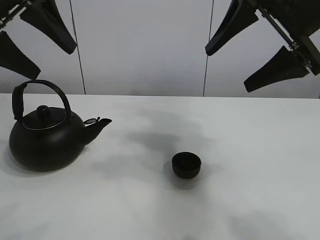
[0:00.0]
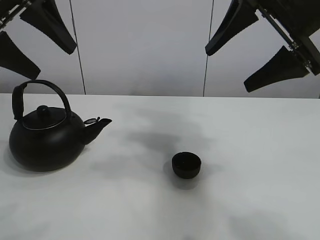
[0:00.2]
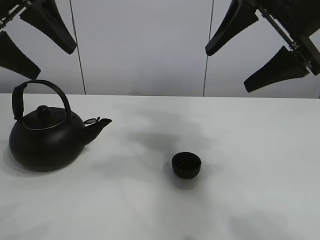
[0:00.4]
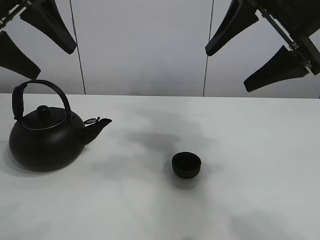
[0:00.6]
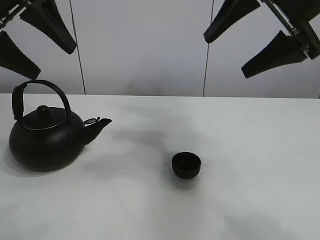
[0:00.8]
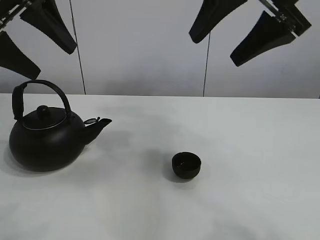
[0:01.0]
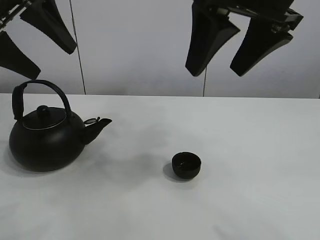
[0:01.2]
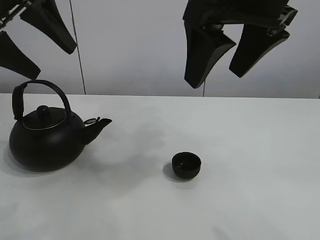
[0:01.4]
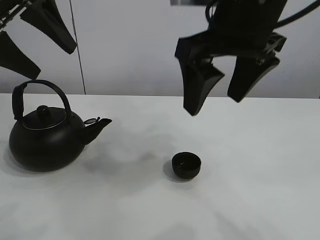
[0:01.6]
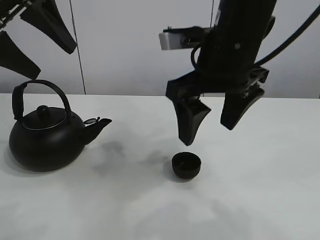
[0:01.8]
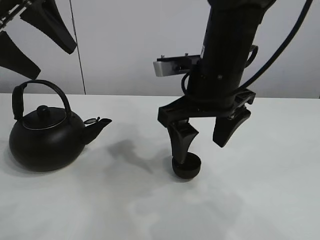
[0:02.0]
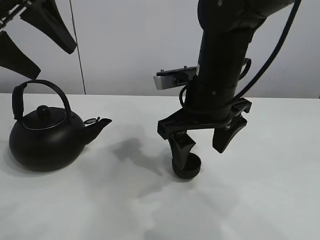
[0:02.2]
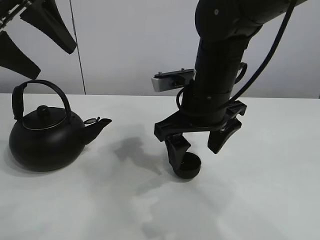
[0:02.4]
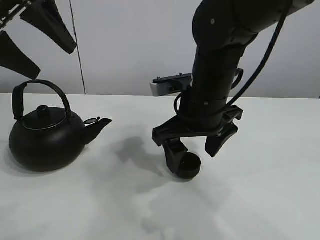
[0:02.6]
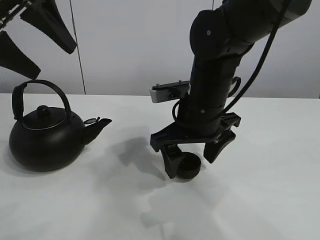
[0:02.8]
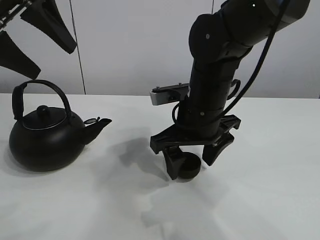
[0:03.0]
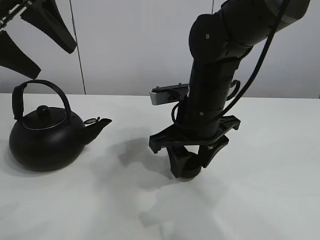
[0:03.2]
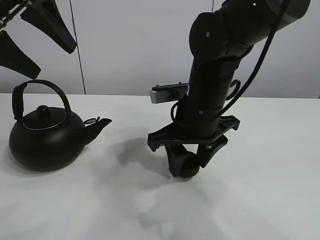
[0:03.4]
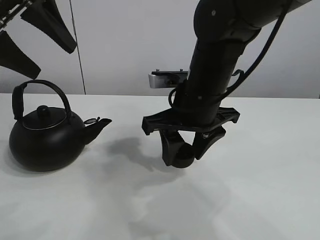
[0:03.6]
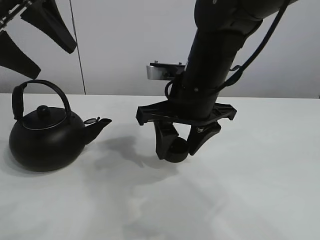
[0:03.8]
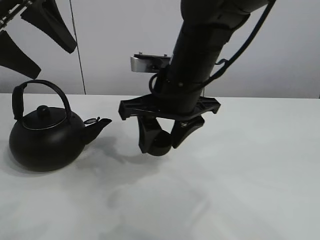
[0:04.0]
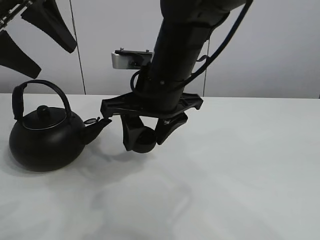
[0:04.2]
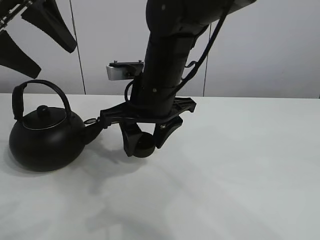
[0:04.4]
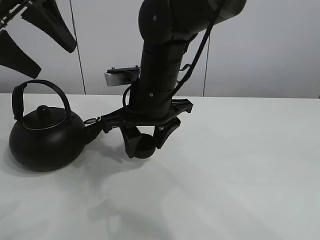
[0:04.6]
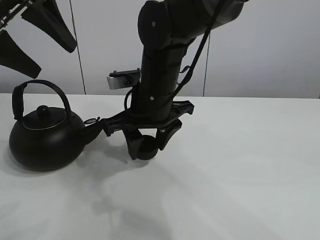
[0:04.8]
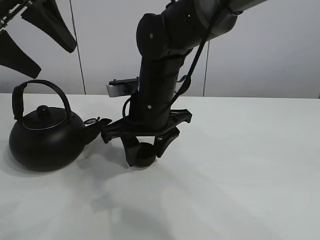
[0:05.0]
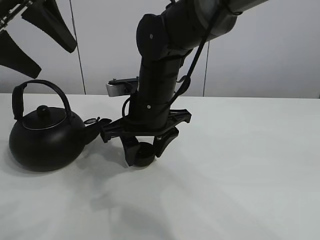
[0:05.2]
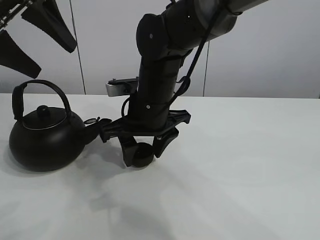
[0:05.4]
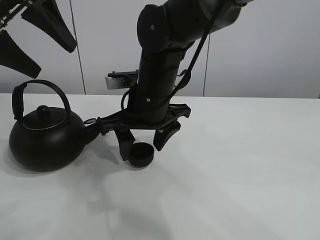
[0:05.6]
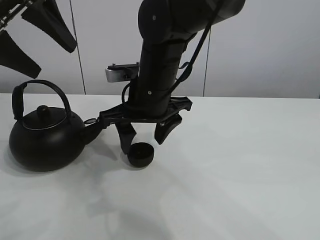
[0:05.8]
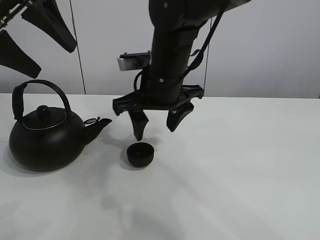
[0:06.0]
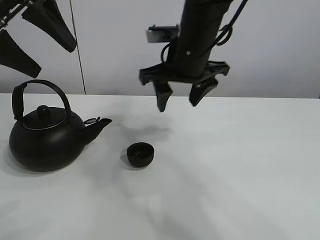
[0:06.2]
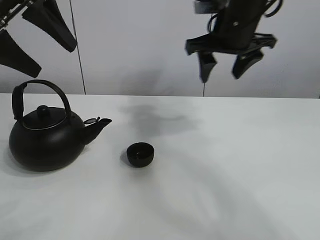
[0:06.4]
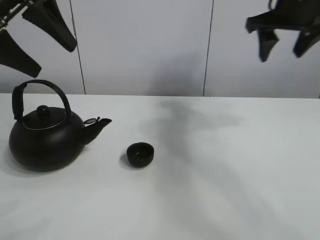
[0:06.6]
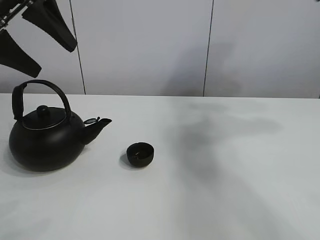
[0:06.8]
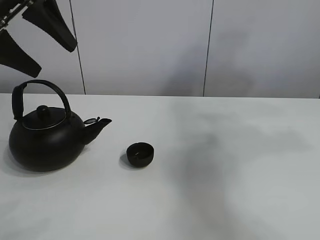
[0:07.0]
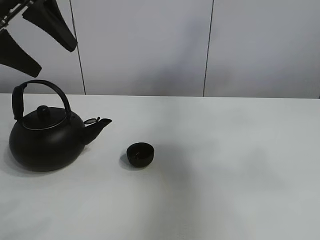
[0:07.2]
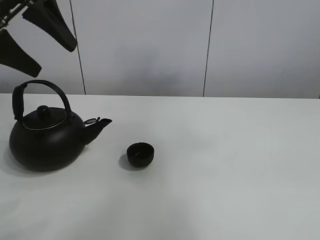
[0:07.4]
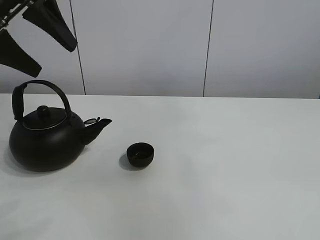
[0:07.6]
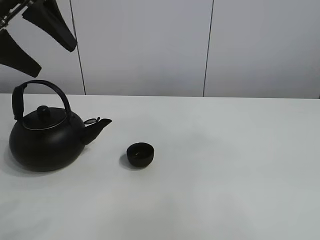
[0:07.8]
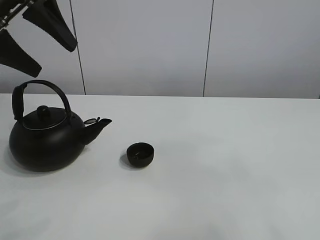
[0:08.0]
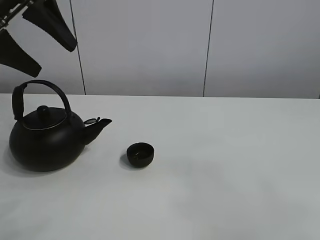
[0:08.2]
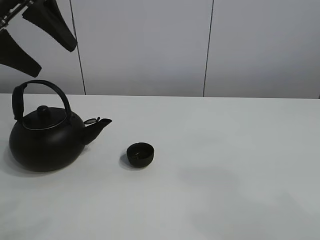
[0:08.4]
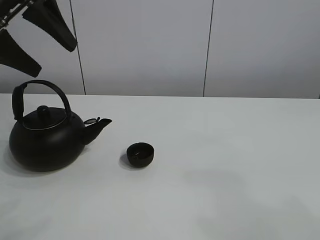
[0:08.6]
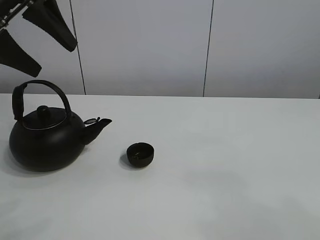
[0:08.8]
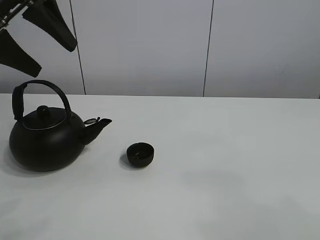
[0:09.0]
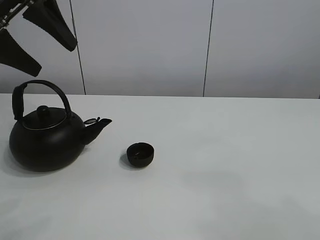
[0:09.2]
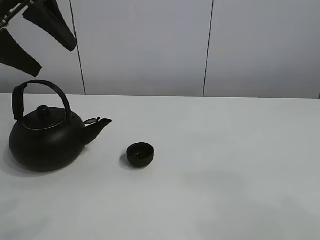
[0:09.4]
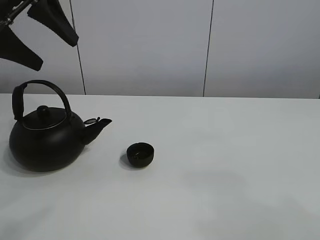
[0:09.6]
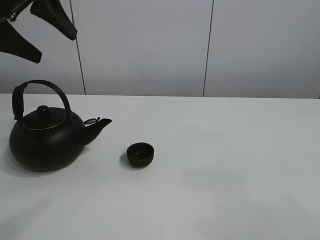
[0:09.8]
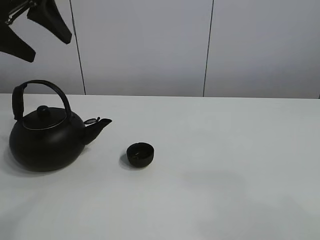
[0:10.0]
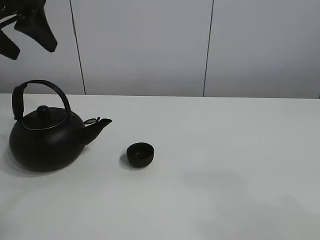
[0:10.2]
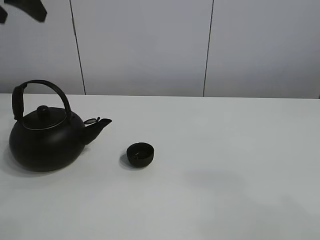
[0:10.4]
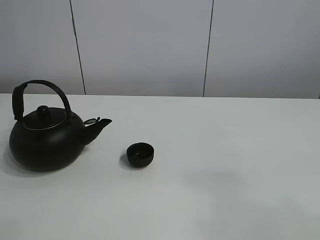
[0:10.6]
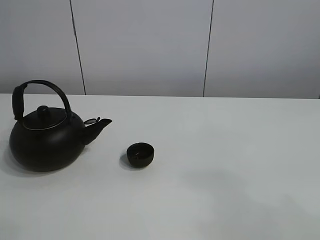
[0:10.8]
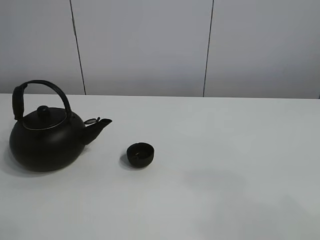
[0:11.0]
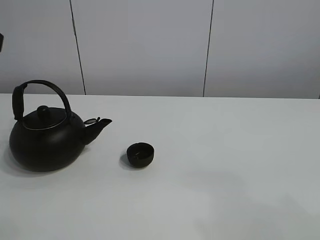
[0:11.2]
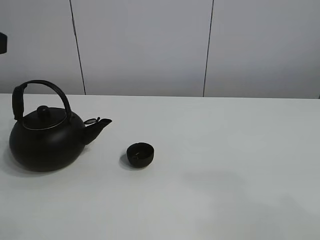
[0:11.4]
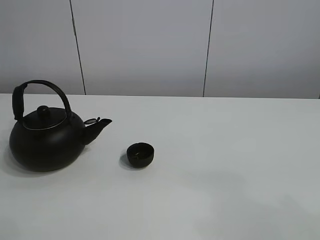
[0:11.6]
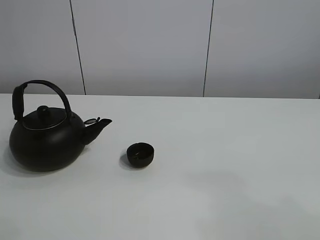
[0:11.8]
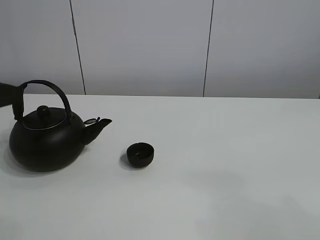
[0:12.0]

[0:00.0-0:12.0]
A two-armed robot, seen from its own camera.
Task of the whole recording: pour tea into the teacup.
Step, 0:00.0 to 0:03.4: Pick up the teacup with the right gripper.
Step, 0:03.6 to 0:05.6: Place the teacup in the center of view with the right gripper.
0:01.6 to 0:03.0: The right gripper goes about 15 cm downward.
0:03.0 to 0:04.4: The right gripper heads to the left, covering about 5 cm, and closes.
0:04.4 to 0:06.0: The right gripper opens.
0:06.0 to 0:07.6: The right gripper moves backward, upward and to the right, approximately 60 cm.
0:07.6 to 0:09.0: The right gripper moves downward, roughly 25 cm.
0:10.4 to 0:12.0: The left gripper travels downward and backward by roughly 15 cm.

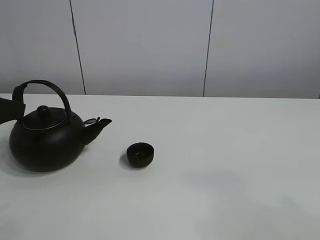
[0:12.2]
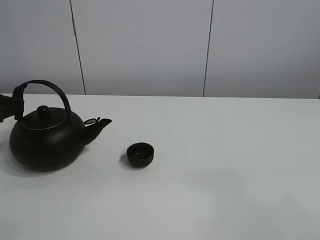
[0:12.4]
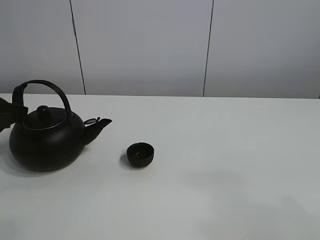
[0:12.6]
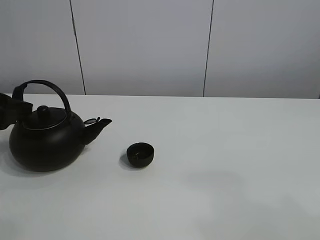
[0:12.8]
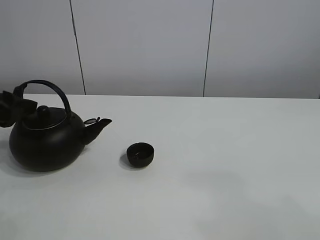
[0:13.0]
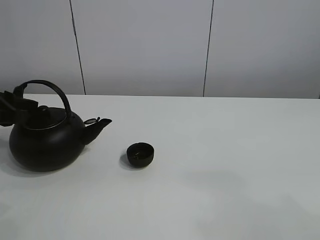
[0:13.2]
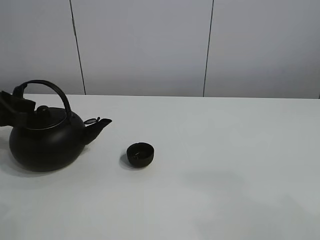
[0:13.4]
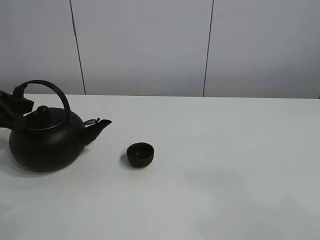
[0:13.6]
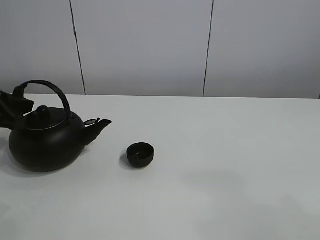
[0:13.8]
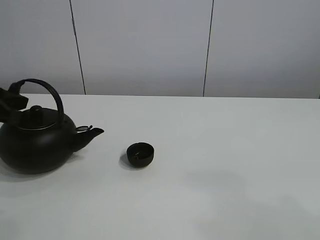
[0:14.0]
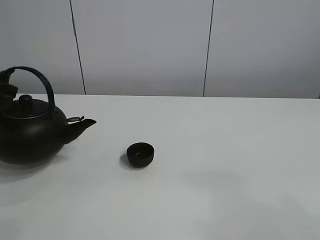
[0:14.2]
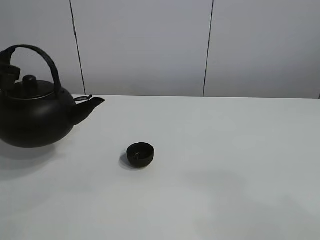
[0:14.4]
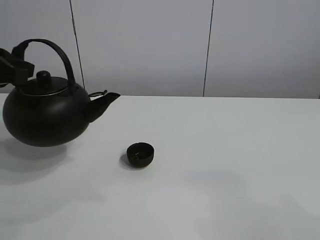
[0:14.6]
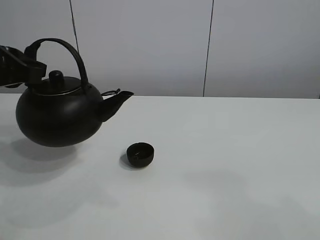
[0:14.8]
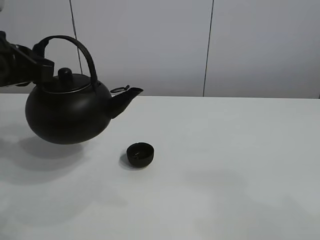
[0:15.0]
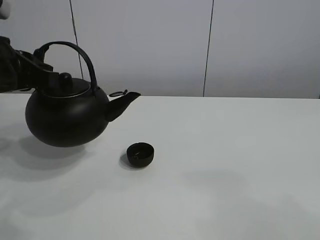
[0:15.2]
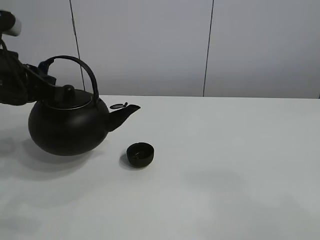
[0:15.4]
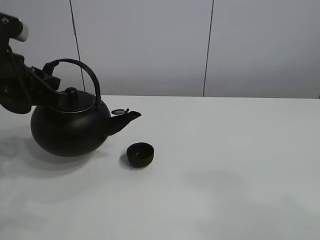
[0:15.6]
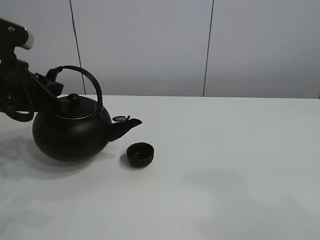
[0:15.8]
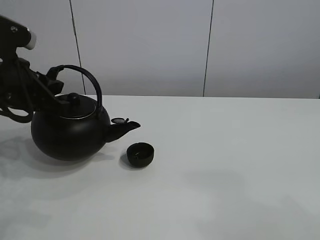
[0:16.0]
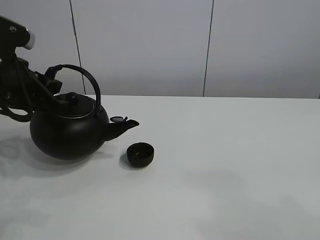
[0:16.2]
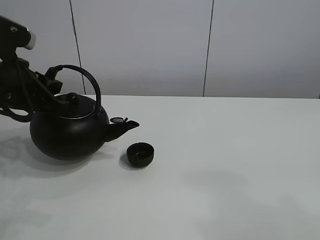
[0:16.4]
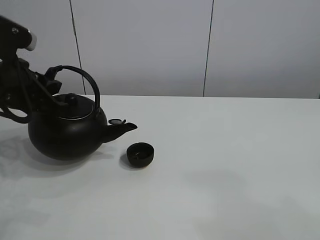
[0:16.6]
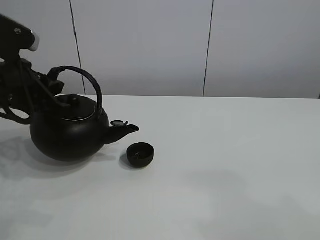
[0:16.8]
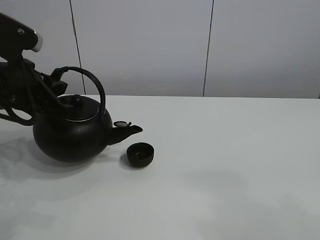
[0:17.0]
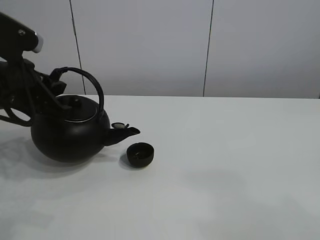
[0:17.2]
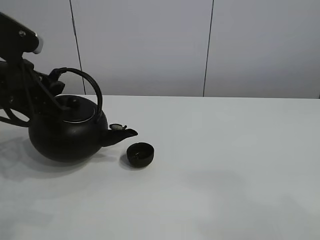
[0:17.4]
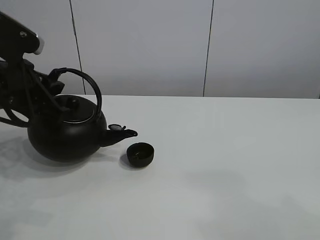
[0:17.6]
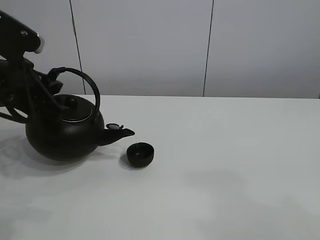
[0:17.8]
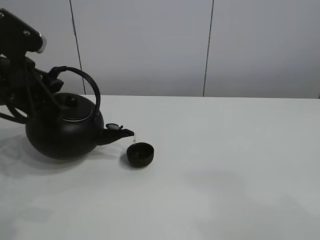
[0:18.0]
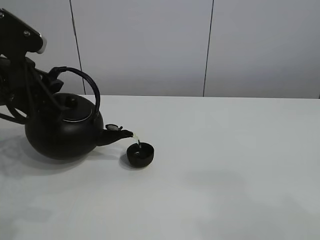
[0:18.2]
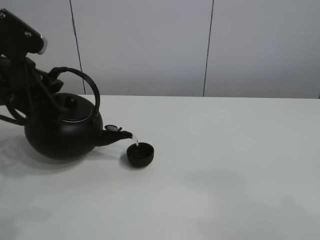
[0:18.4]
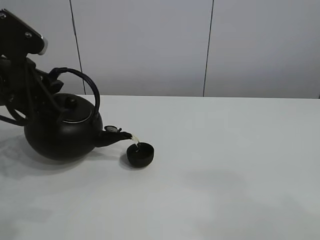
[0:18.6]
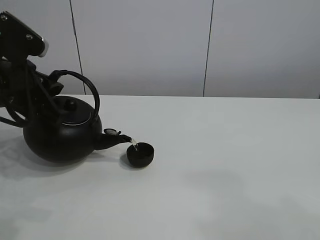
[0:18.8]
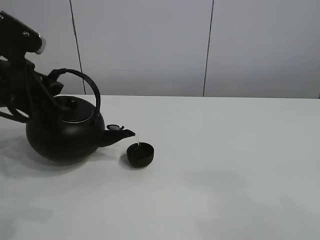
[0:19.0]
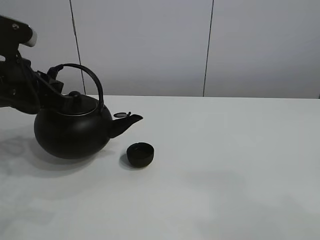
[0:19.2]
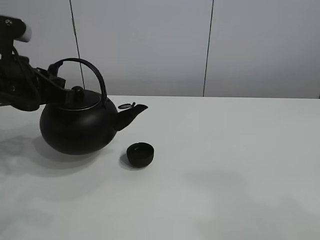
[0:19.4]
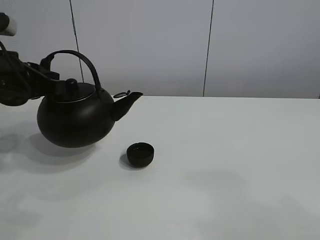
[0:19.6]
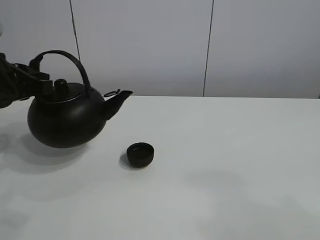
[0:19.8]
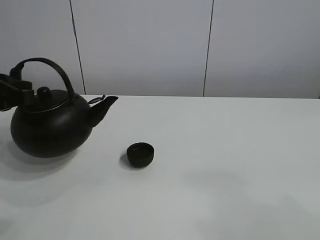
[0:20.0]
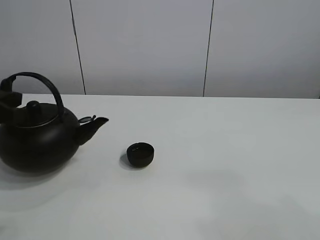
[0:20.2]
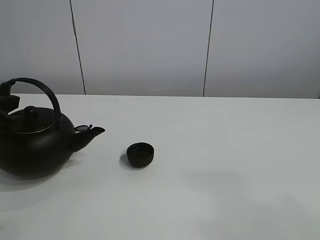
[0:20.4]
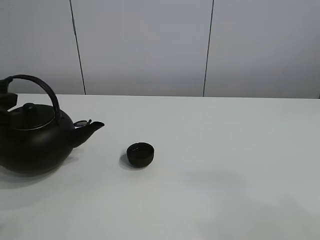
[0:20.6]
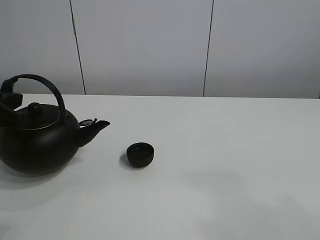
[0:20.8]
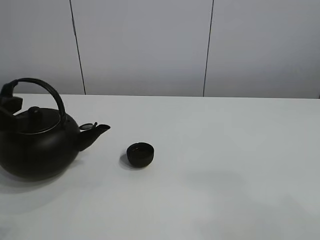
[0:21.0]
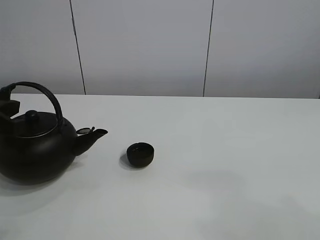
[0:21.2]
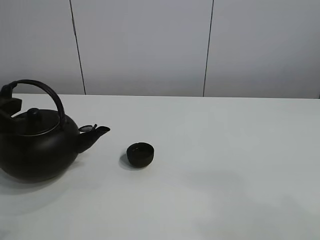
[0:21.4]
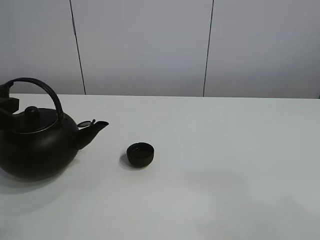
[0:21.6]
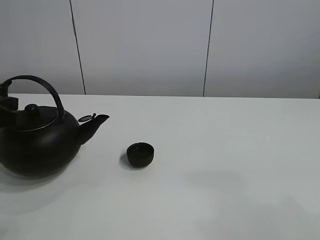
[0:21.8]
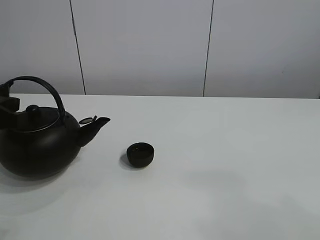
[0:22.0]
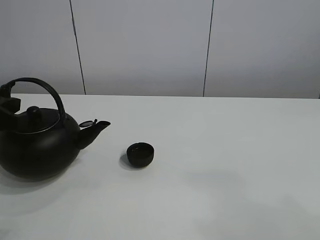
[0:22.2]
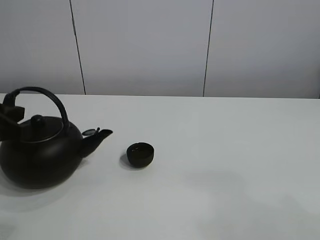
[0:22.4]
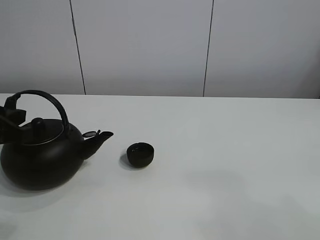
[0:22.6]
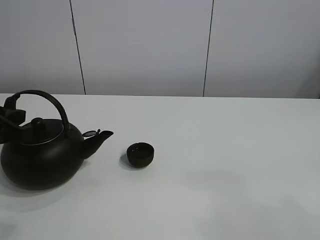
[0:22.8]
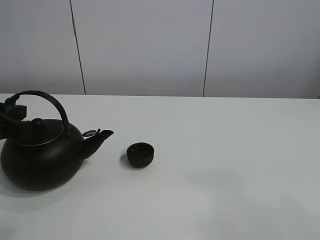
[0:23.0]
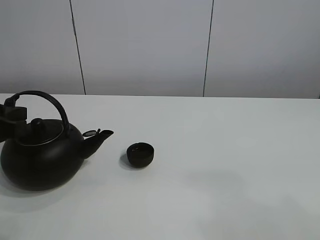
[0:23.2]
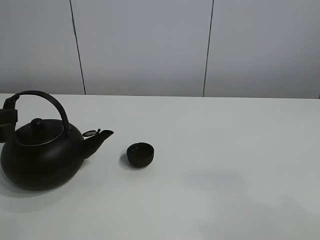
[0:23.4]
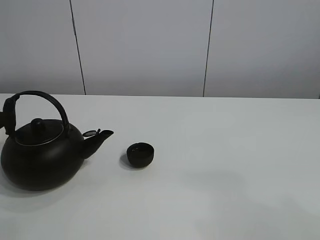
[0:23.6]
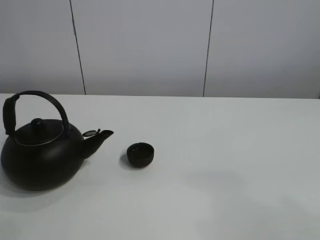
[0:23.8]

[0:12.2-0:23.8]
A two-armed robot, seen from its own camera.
Task of the whole recording: pour tea into the teacup.
Step, 0:14.0 to 0:19.0: Pour tea into the teacup with the left gripper.
0:12.2 to 0:13.6: The left gripper travels forward by roughly 5 cm, and closes up.
0:13.6 to 0:15.0: The left gripper moves upward and to the right, some 10 cm.
0:15.0 to 0:16.6: The grippers move only a little.
0:16.6 to 0:18.0: The grippers make only small movements.
0:19.4 to 0:21.0: The left gripper moves to the left, some 5 cm.
0:21.0 to 0:22.4: The grippers stay close to where they were, moving slightly.
0:22.4 to 0:23.8: The left gripper moves backward, some 5 cm, and opens its fingers.
